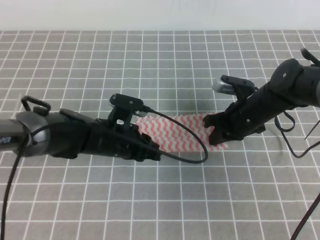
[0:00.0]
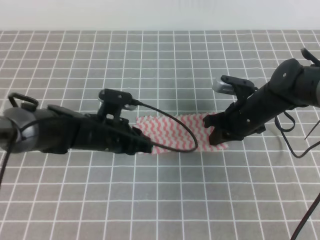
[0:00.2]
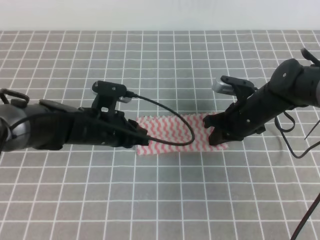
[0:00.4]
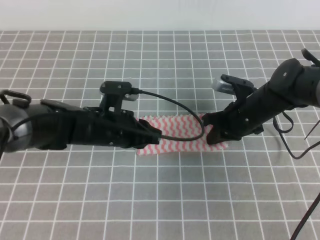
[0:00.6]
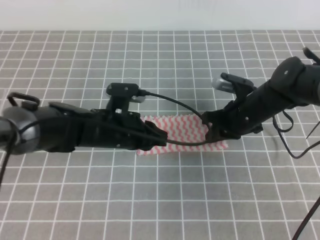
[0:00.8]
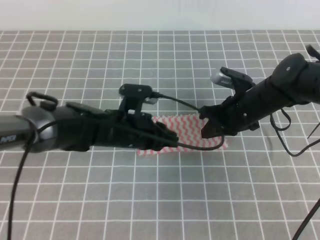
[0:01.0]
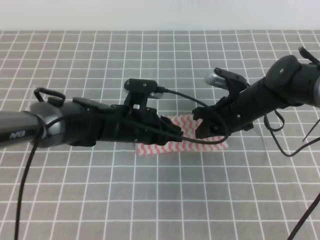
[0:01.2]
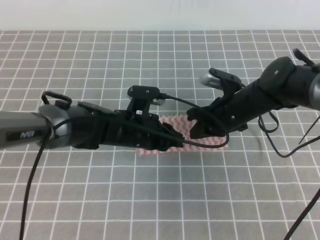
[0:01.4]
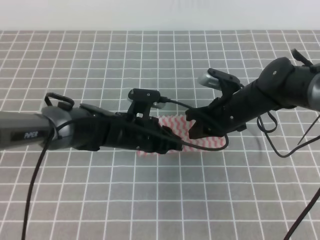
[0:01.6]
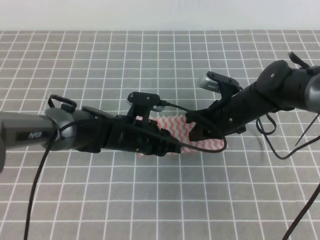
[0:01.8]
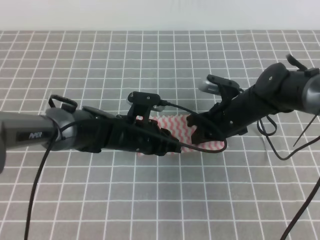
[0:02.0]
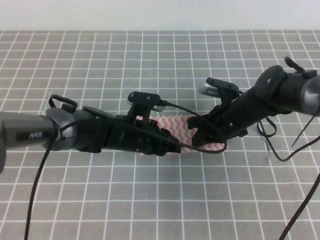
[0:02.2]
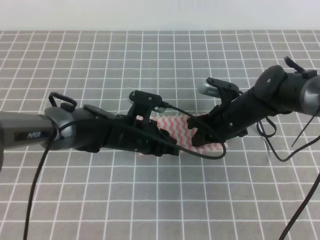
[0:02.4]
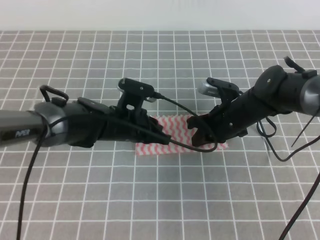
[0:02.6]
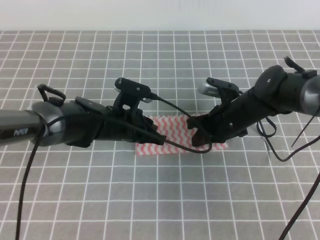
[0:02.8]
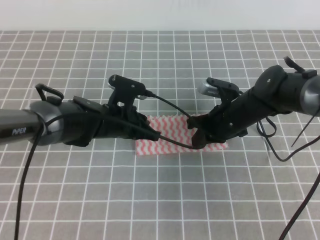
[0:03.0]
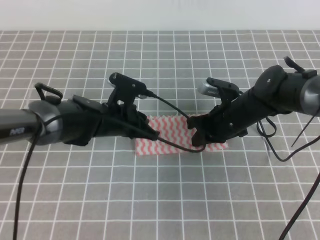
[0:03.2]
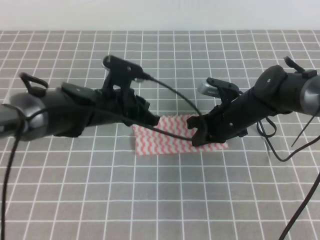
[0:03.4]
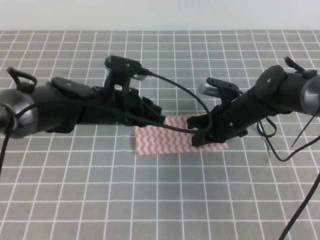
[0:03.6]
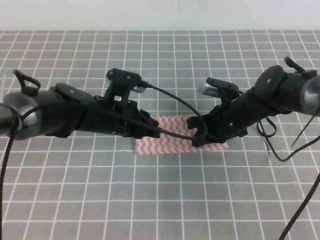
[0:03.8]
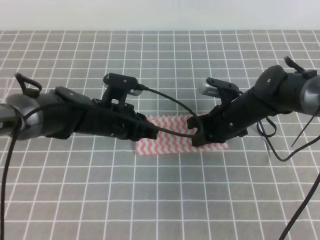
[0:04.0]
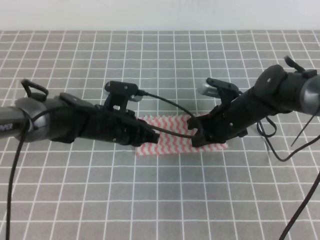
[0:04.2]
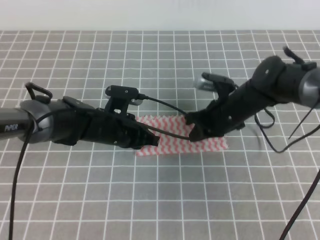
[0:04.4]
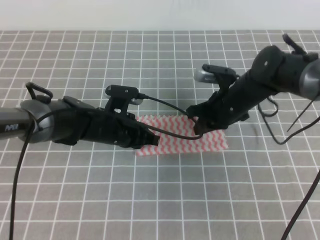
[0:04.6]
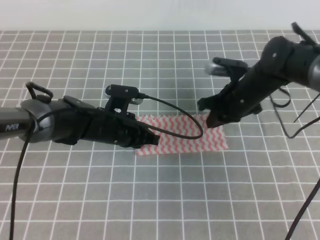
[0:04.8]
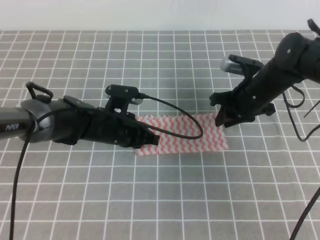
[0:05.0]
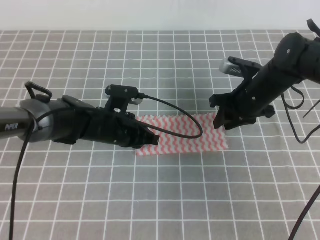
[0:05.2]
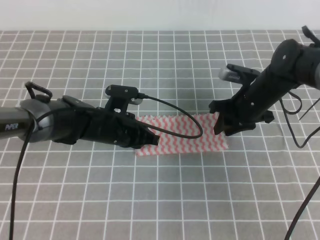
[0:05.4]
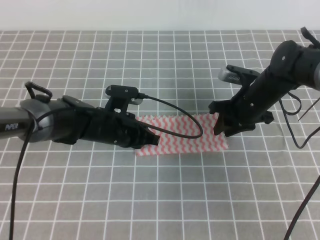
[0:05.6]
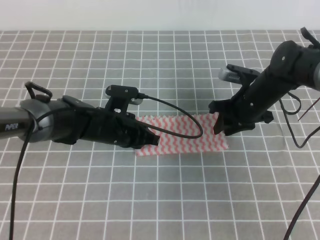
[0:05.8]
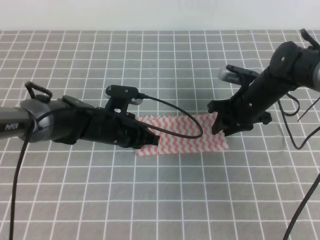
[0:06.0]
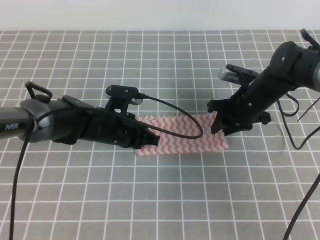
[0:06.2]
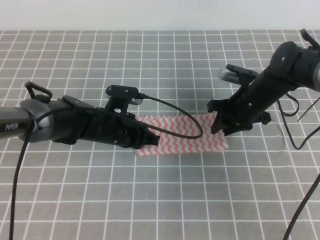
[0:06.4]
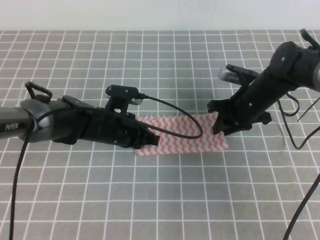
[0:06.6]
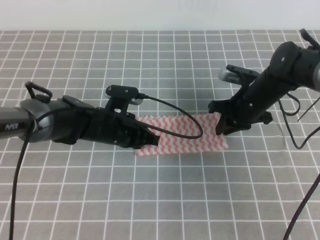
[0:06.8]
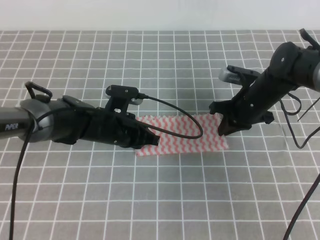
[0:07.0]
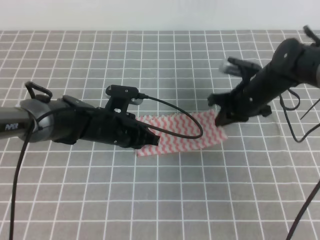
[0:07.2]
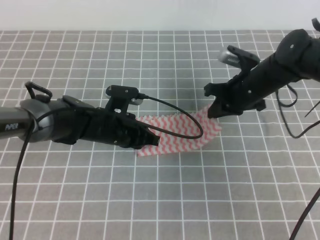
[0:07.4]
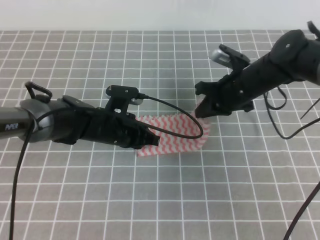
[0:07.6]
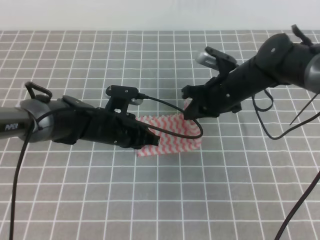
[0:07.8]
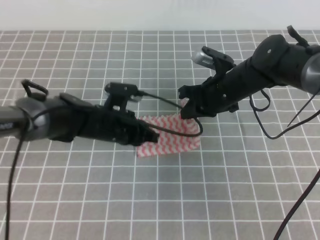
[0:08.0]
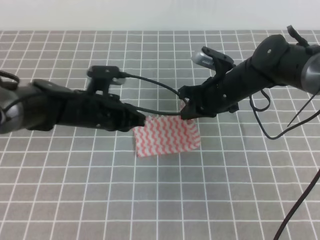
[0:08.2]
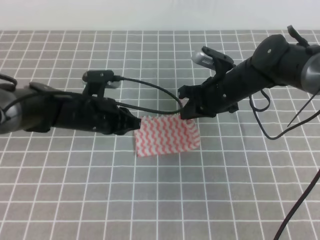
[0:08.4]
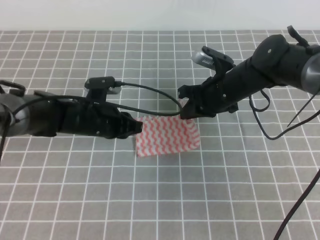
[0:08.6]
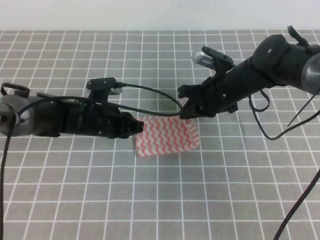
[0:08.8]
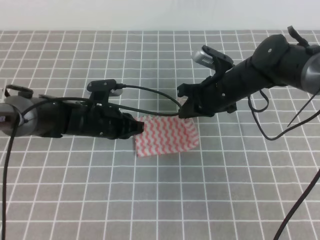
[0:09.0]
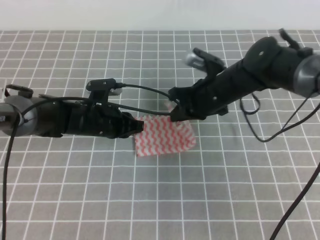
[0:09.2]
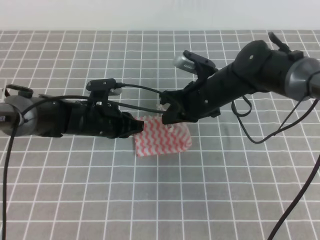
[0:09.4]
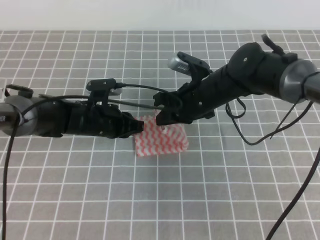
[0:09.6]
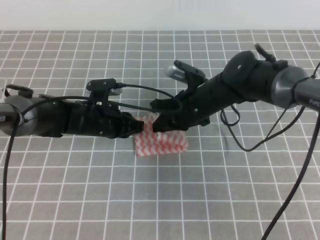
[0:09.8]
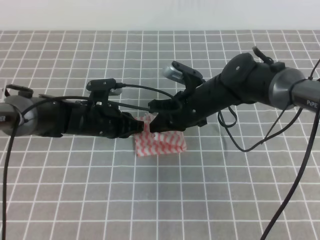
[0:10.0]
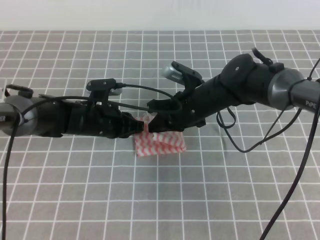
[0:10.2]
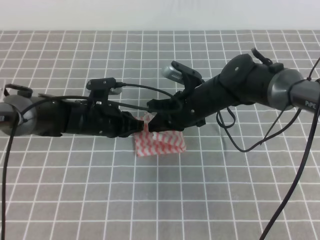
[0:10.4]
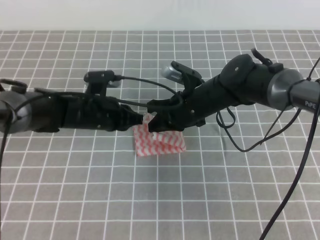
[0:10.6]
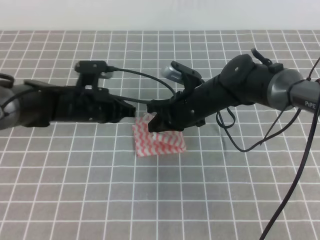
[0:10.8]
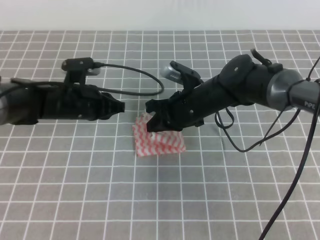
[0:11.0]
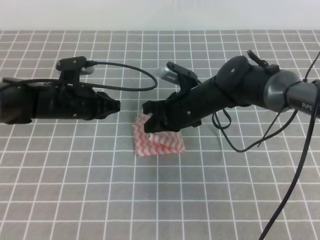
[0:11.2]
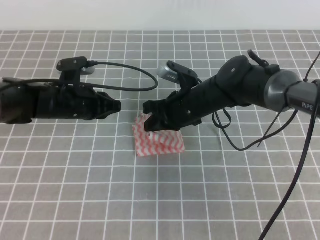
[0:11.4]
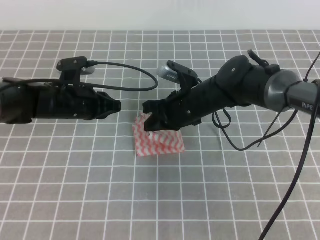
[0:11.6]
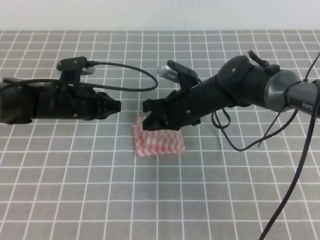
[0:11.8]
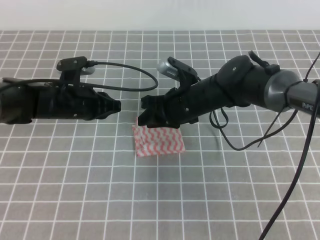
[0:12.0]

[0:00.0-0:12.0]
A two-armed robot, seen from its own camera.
0:00.0 to 0:01.6: The grippers stay close to where they were, moving slightly.
0:03.0 to 0:04.4: The grippers make only small movements.
0:04.4 to 0:06.0: The right gripper moves roughly 5 cm, and opens its fingers.
0:06.0 to 0:07.6: The right gripper closes.
0:07.6 to 0:09.0: There are only small adjustments of the grippers.
0:09.0 to 0:10.4: The right gripper shifts roughly 5 cm to the left.
0:10.4 to 0:12.0: The right gripper opens its fingers; the left gripper moves about 5 cm.

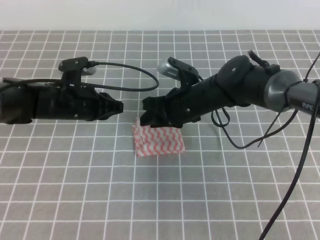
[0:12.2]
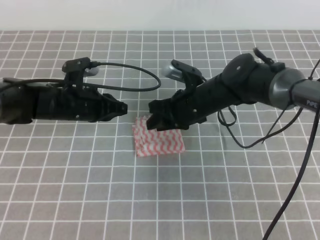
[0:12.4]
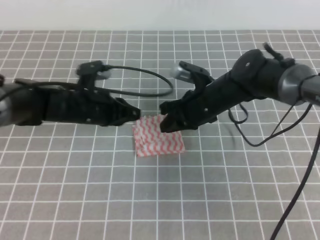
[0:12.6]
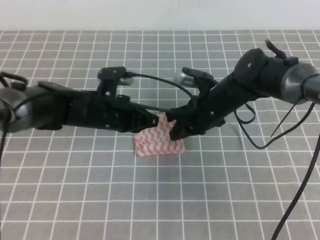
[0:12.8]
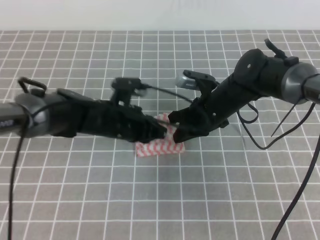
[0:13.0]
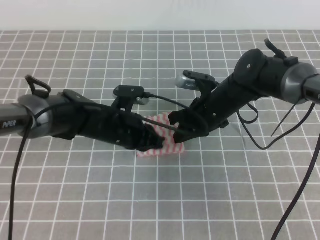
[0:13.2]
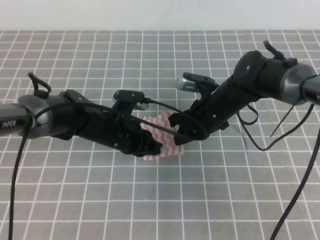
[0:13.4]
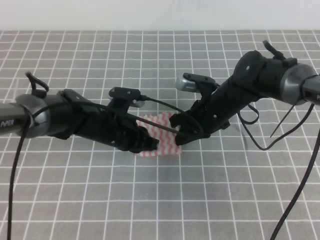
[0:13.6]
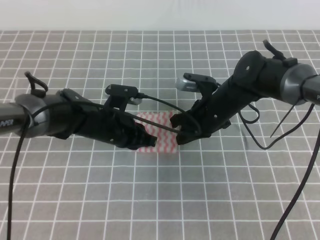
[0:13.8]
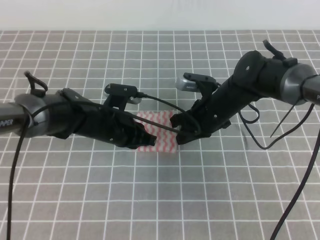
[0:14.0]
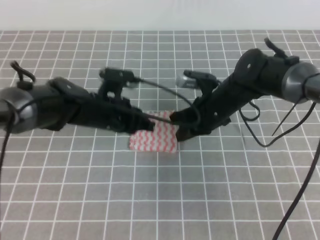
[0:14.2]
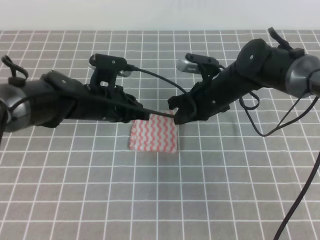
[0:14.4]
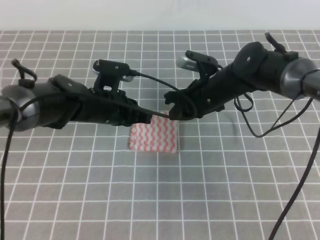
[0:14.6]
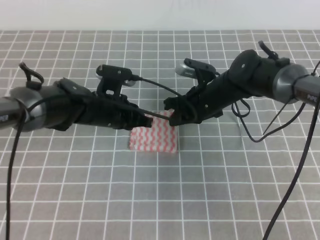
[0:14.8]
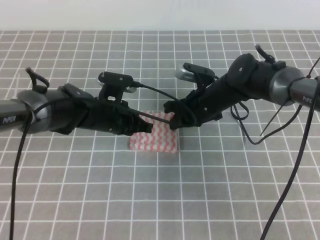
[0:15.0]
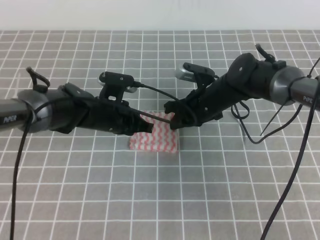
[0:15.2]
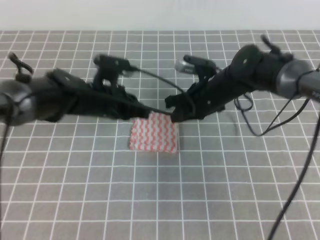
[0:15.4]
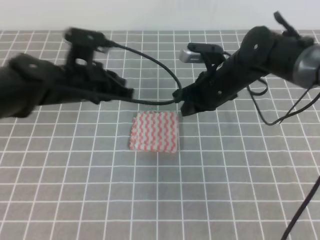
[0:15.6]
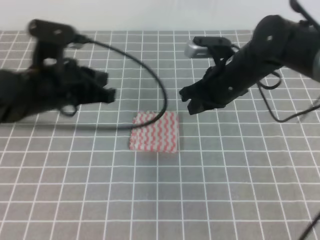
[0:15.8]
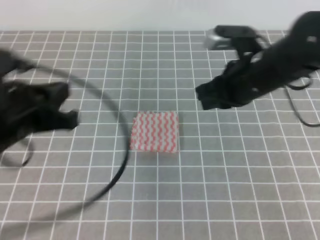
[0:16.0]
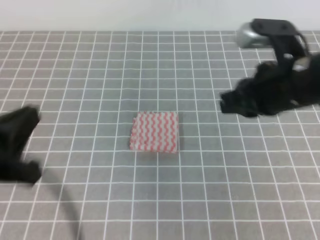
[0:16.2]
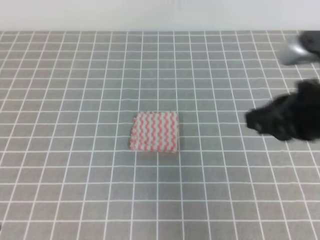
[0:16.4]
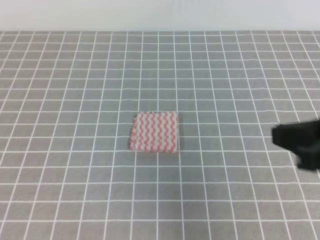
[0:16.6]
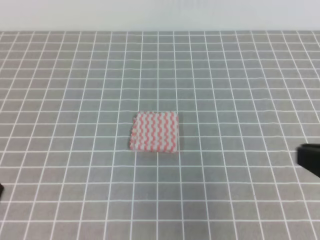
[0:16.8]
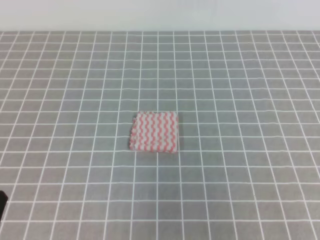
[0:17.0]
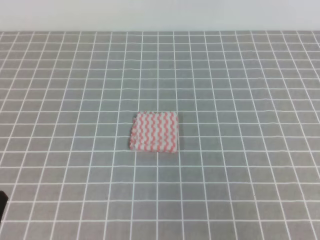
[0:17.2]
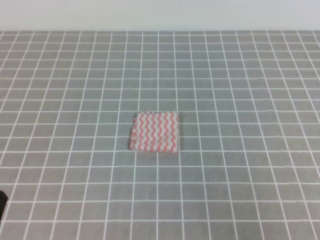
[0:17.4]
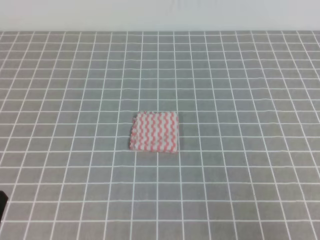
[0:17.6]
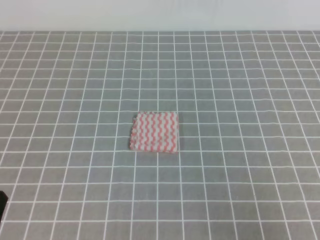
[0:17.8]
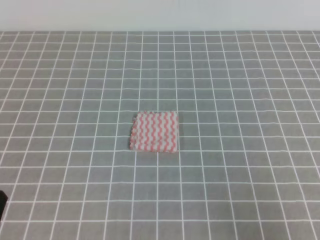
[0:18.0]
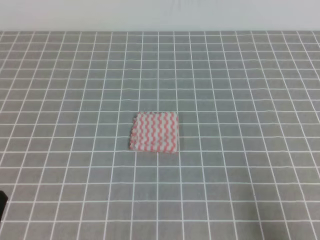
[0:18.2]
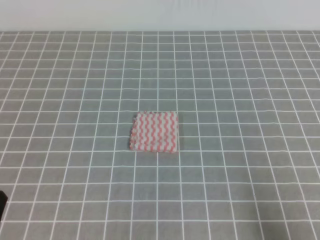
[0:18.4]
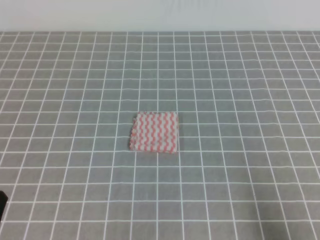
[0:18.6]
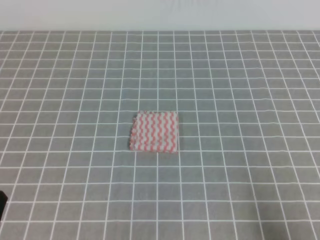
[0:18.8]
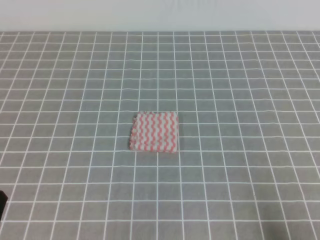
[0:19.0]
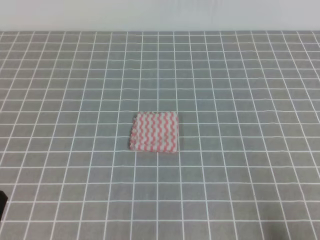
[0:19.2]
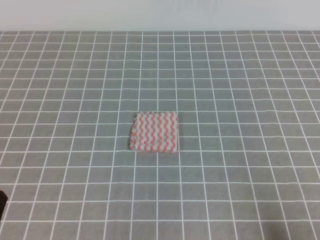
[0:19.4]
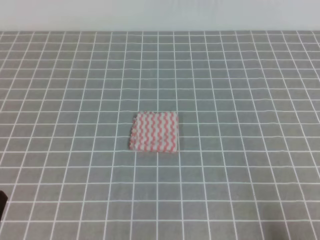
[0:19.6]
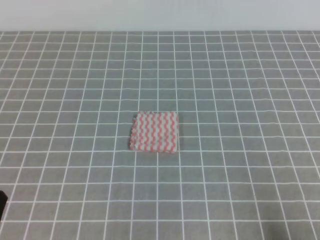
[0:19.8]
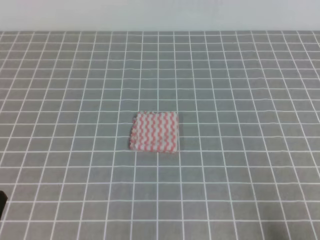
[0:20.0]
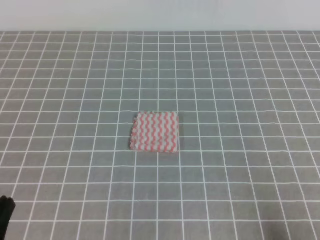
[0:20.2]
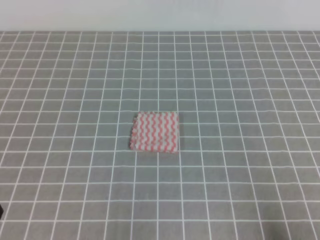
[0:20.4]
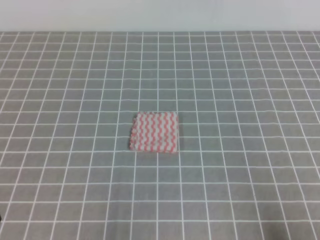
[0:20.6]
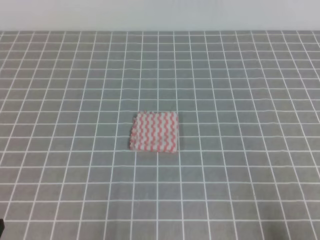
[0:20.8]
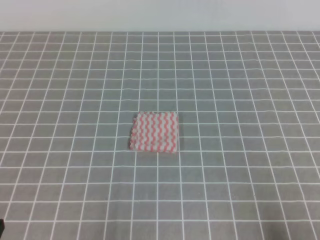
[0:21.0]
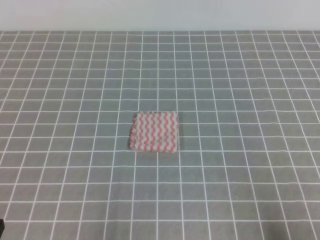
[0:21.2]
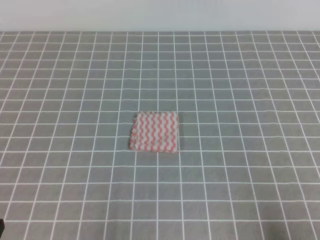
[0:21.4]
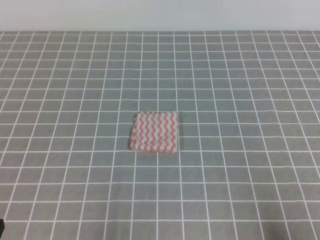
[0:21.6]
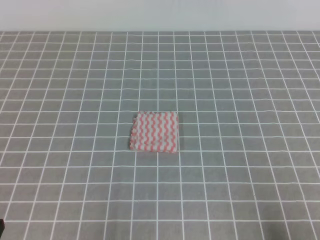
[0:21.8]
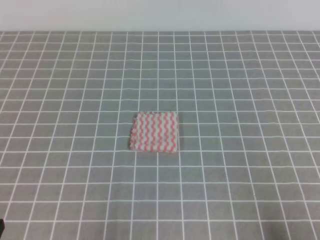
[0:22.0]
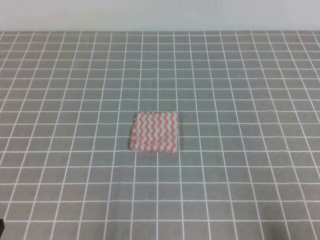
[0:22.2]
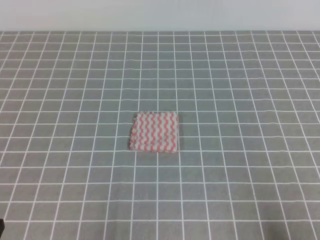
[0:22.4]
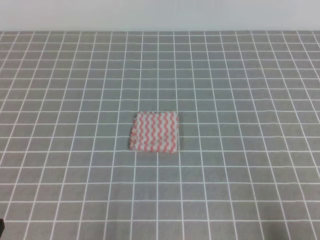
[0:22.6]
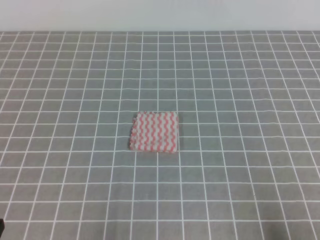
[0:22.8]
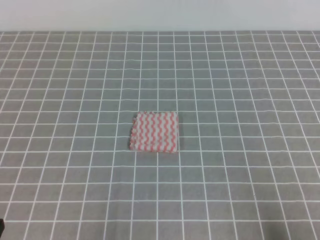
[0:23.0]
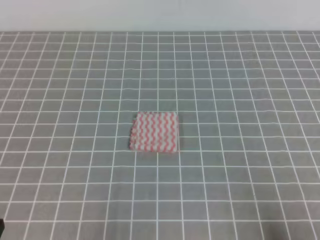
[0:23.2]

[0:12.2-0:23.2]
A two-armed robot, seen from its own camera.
Step, 0:12.2 to 0:23.2: Fold the towel.
0:12.2 to 0:13.8: The right gripper closes. The left gripper travels to the right by roughly 5 cm.
0:13.8 to 0:15.4: The left gripper ends up approximately 5 cm from where it was.
0:15.4 to 0:17.0: The left gripper shifts approximately 35 cm backward and to the left. The right gripper moves backward, to the right and upward, some 40 cm.
0:17.0 to 0:18.4: The right gripper shifts roughly 10 cm downward.
0:21.6 to 0:23.2: The two grippers keep their place.
